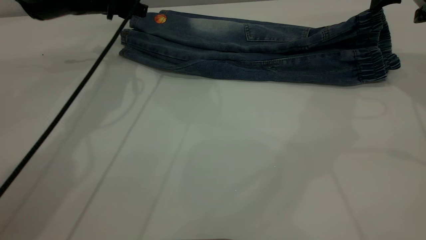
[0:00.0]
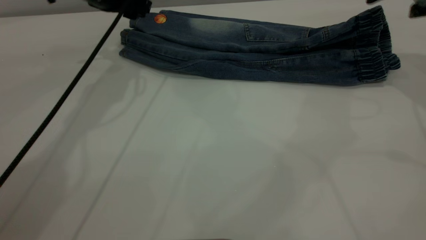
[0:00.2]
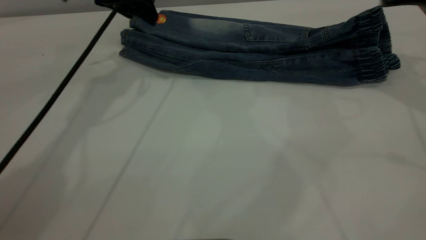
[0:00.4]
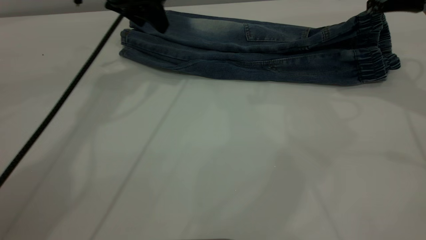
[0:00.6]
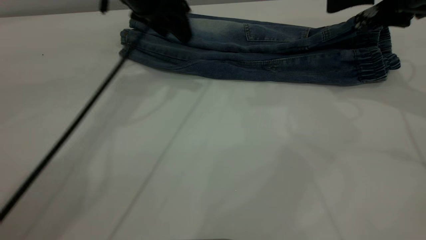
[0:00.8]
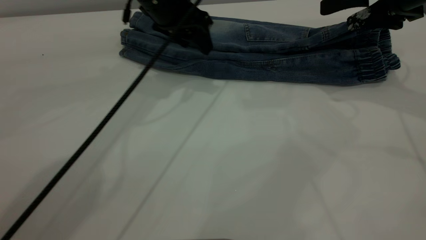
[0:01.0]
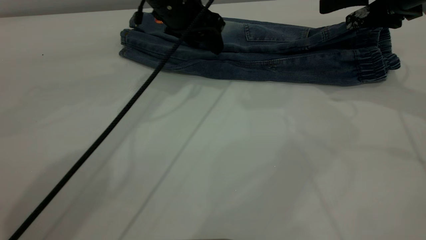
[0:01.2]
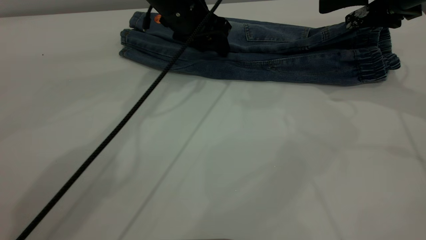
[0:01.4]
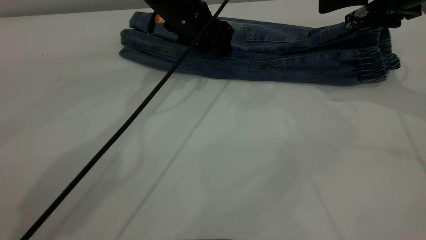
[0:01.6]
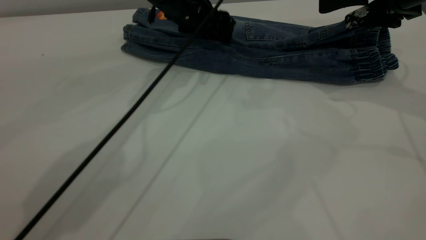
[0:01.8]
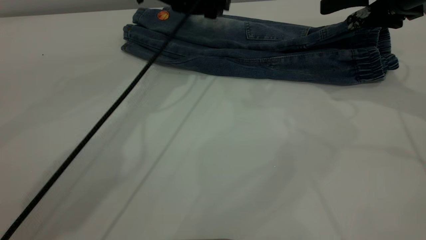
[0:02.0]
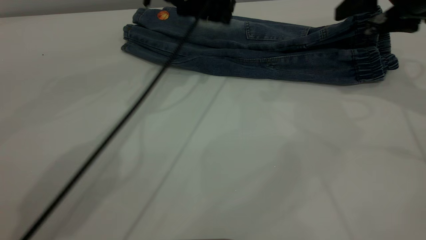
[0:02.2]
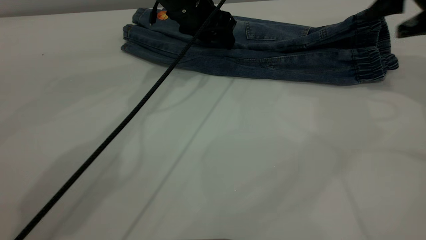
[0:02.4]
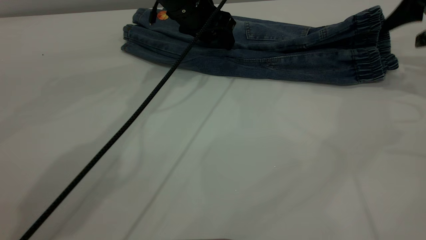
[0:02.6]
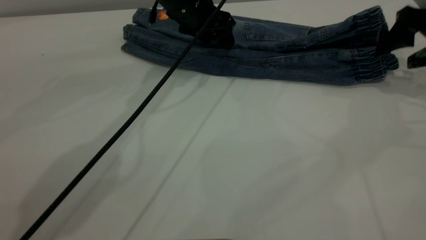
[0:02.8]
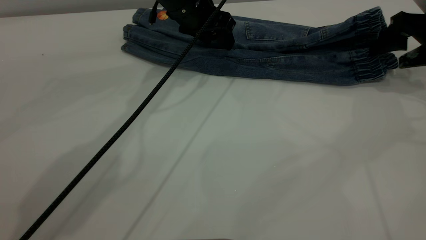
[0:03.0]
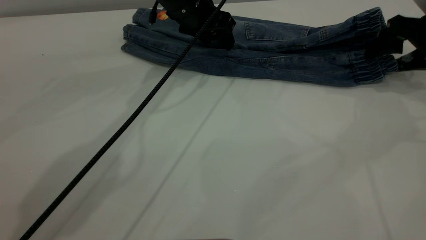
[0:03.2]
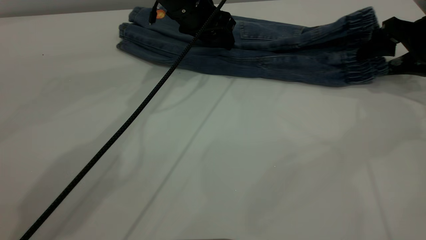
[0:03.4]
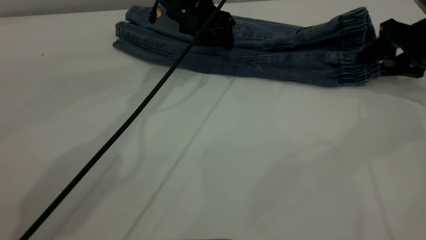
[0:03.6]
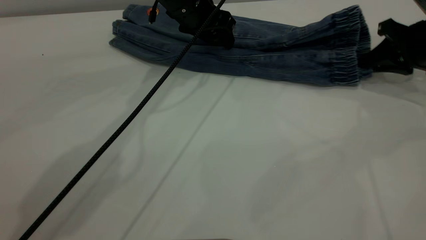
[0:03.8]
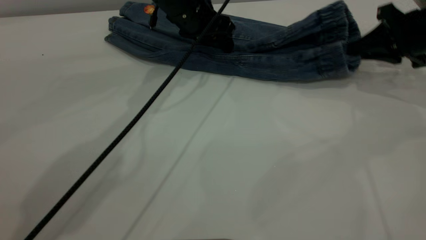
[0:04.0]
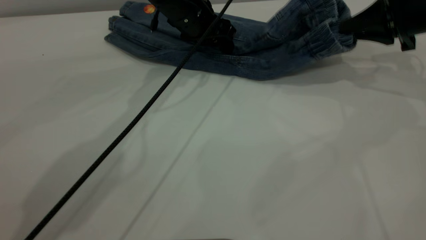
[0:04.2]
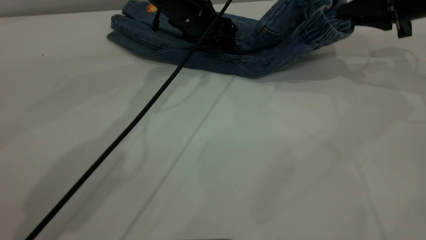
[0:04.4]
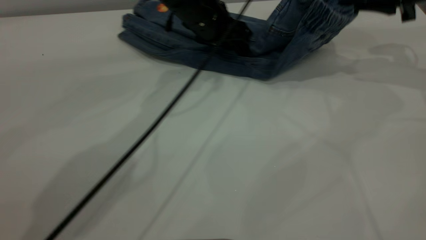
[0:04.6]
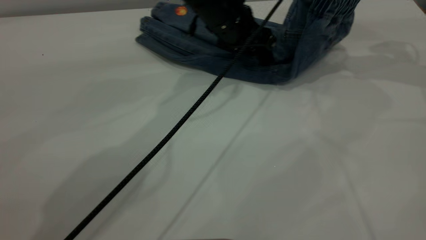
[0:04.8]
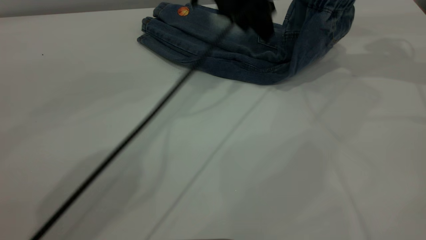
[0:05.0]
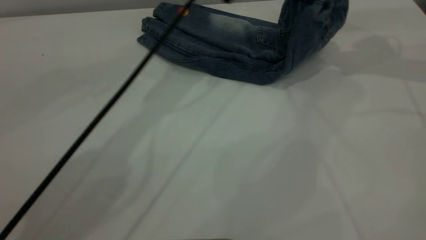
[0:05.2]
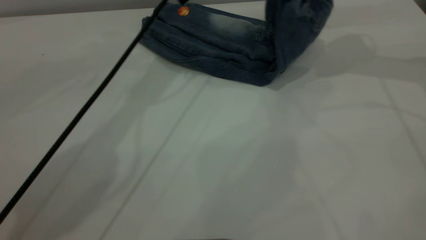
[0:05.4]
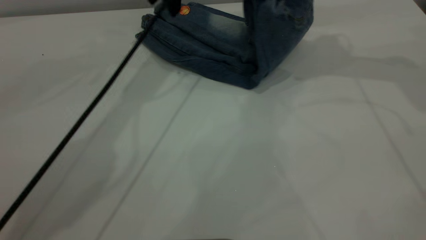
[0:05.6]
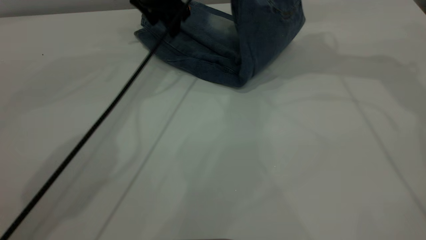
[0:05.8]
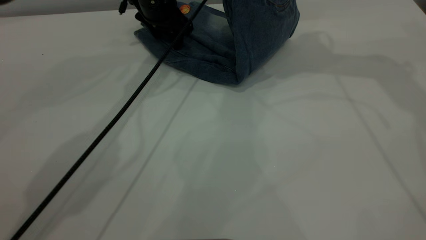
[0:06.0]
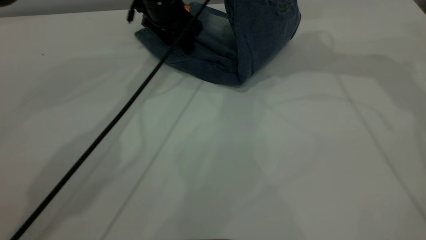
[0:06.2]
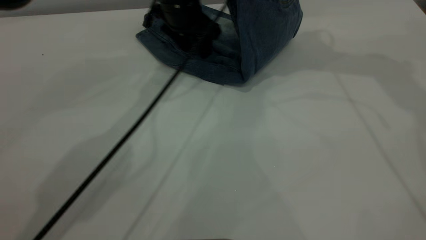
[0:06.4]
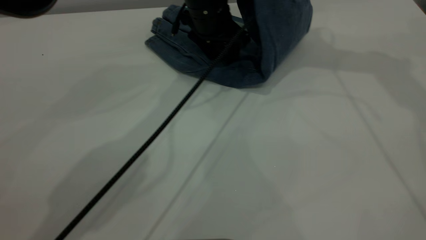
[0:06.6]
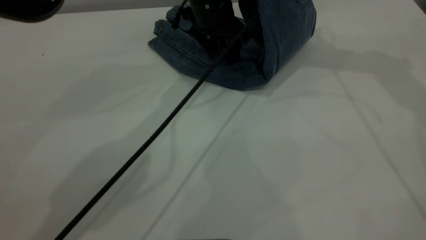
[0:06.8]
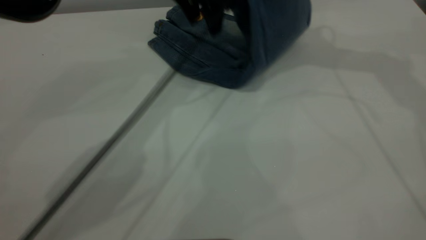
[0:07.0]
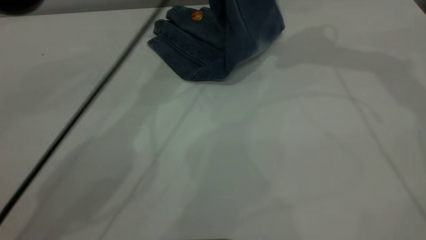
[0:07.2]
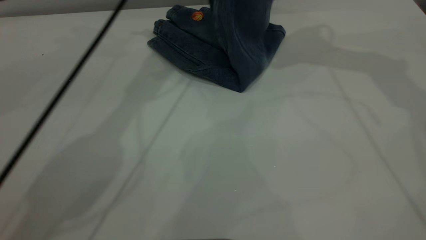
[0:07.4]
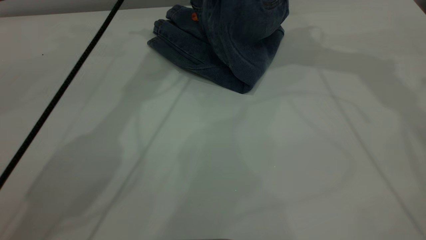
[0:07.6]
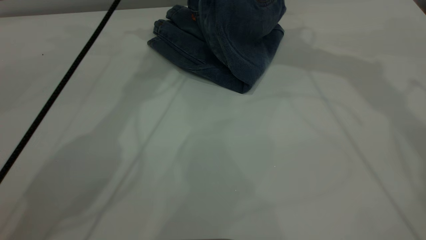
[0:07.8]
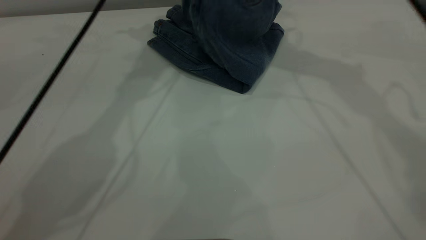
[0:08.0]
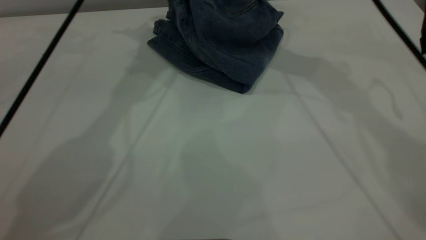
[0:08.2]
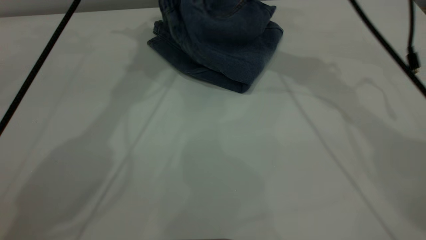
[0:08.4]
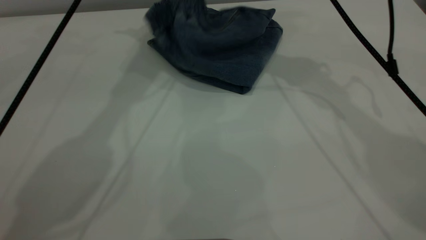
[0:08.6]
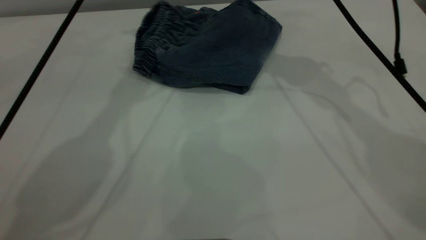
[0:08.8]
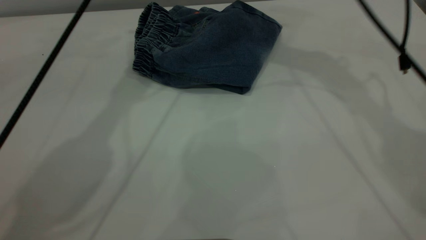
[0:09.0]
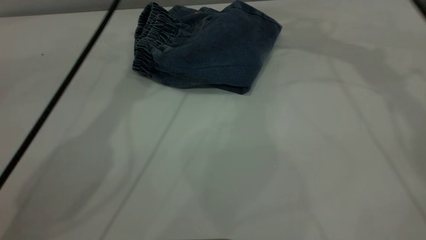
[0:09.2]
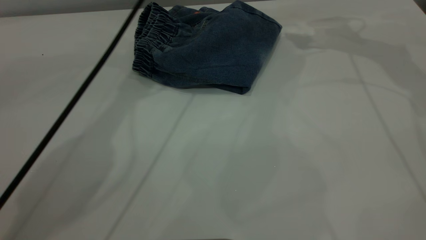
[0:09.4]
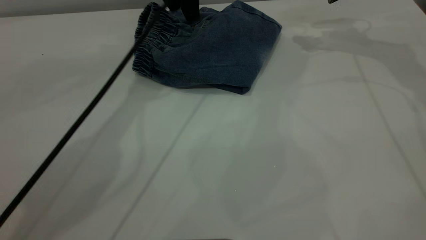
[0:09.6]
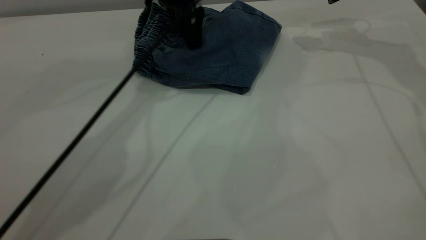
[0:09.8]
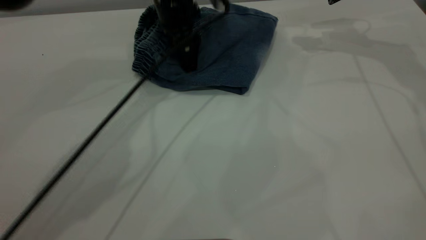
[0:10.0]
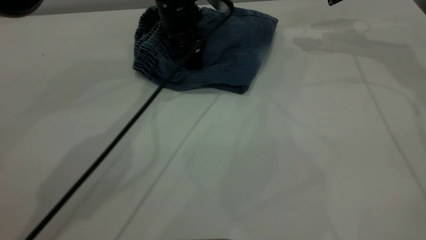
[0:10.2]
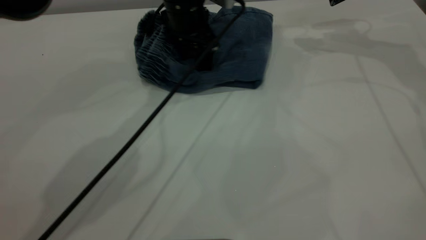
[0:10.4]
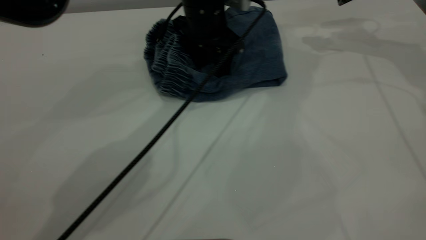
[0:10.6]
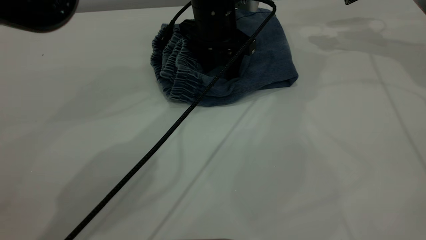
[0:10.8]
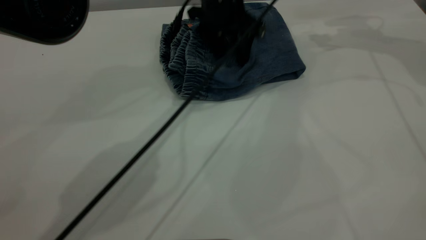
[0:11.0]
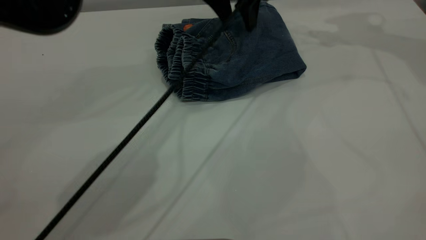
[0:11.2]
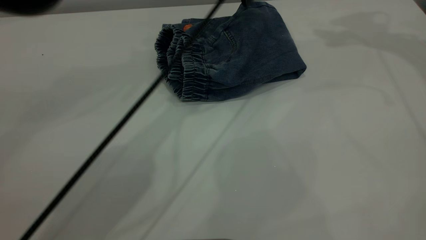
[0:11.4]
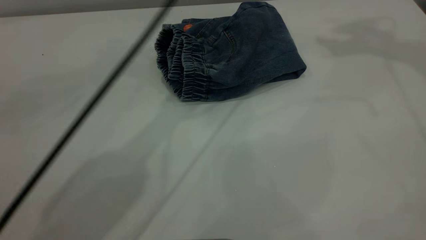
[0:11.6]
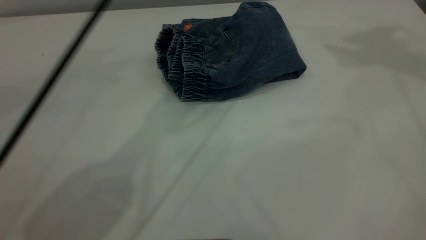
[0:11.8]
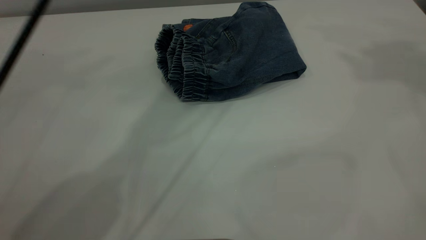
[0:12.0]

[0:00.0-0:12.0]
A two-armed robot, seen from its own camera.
Step, 0:00.4 to 0:09.0: Fold your pants from right to left.
0:00.0 to 0:01.6: The left gripper goes about 15 cm to the right.
0:01.6 to 0:03.0: The right gripper moves to the right and downward, approximately 10 cm.
0:03.0 to 0:04.4: The right gripper changes place by approximately 5 cm, and closes.
0:04.4 to 0:06.0: The right gripper goes roughly 20 cm to the left and upward. Meanwhile the left gripper moves to the left, approximately 5 cm, and moves roughly 15 cm upward and comes back.
0:06.0 to 0:07.6: The left gripper heads upward, covering some 15 cm.
0:07.6 to 0:09.0: The right gripper travels downward by approximately 10 cm, and opens its fingers.
0:09.0 to 0:10.4: The left gripper heads downward, covering approximately 20 cm. Meanwhile the right gripper is displaced to the right by some 15 cm.
0:10.4 to 0:12.0: The right gripper is displaced upward and backward by roughly 40 cm. The left gripper travels upward by roughly 35 cm.
